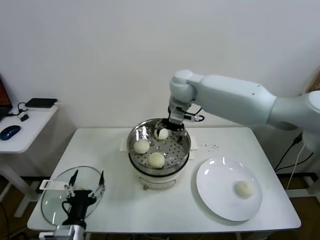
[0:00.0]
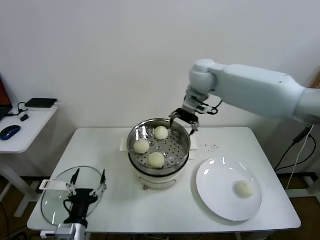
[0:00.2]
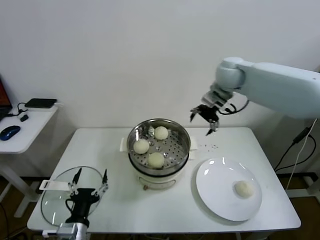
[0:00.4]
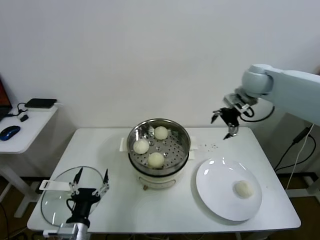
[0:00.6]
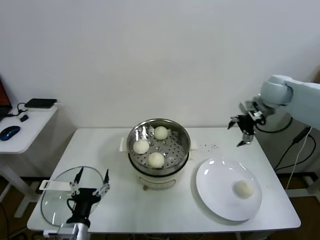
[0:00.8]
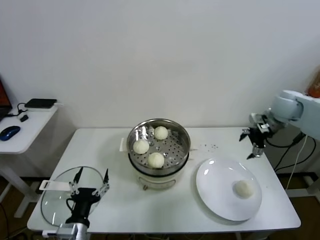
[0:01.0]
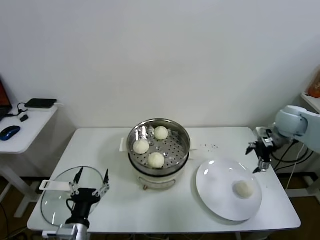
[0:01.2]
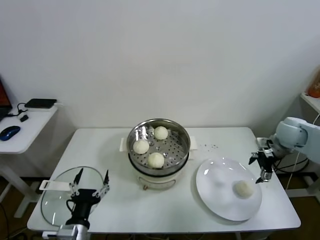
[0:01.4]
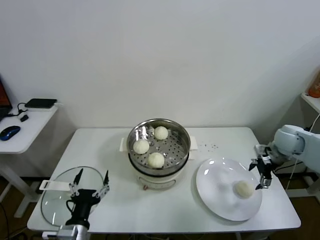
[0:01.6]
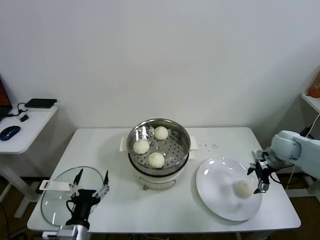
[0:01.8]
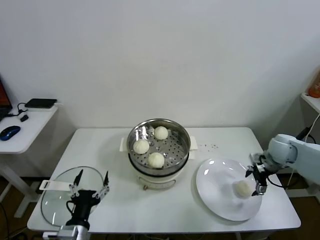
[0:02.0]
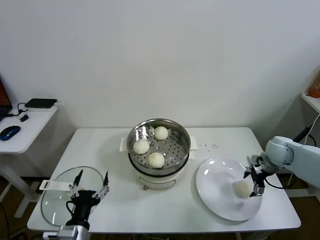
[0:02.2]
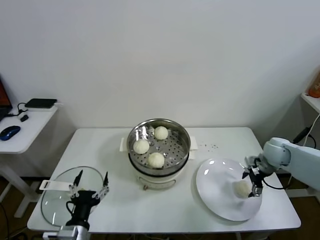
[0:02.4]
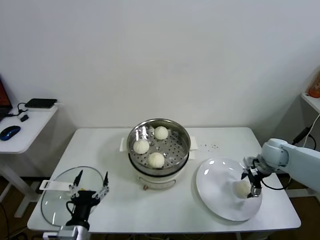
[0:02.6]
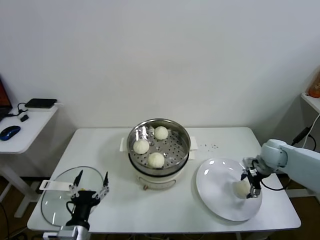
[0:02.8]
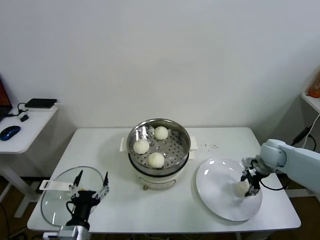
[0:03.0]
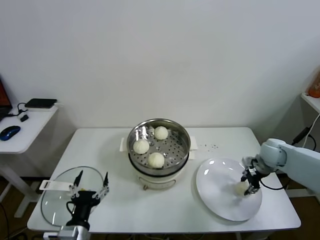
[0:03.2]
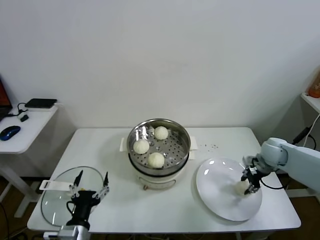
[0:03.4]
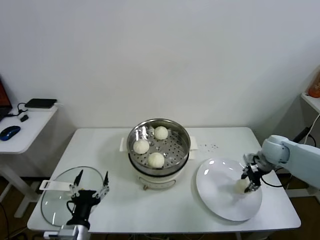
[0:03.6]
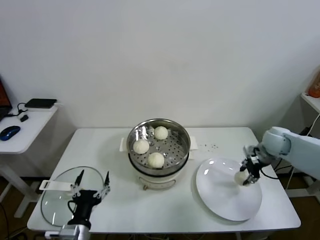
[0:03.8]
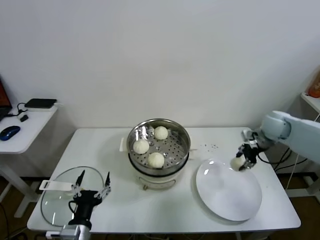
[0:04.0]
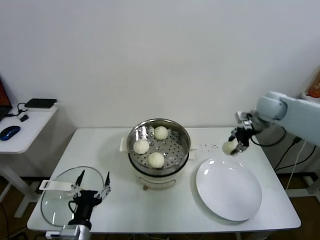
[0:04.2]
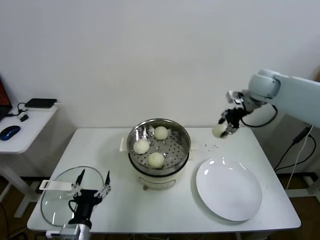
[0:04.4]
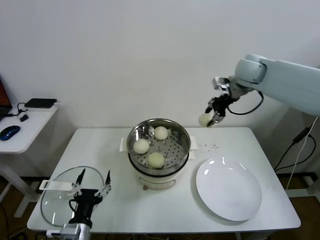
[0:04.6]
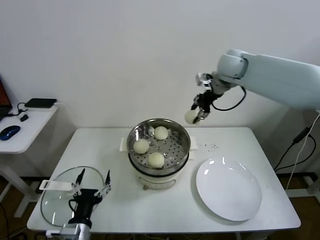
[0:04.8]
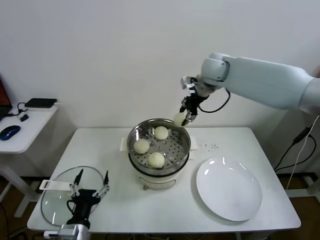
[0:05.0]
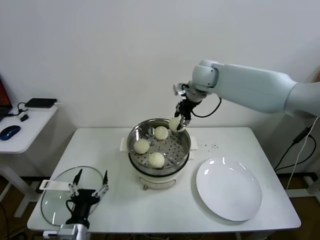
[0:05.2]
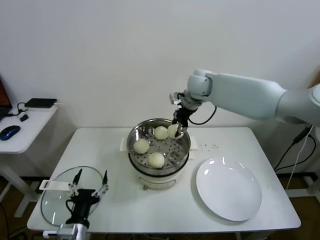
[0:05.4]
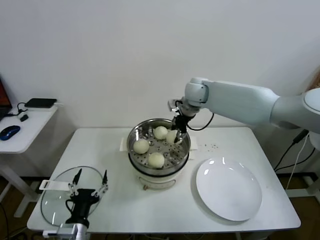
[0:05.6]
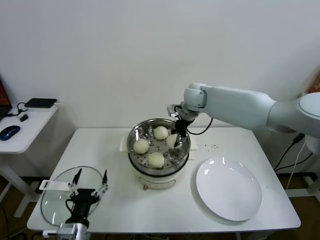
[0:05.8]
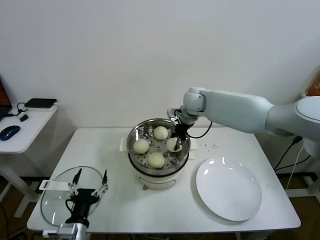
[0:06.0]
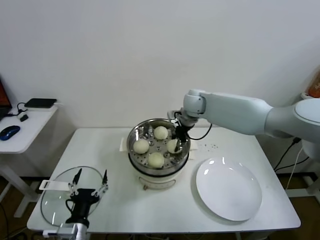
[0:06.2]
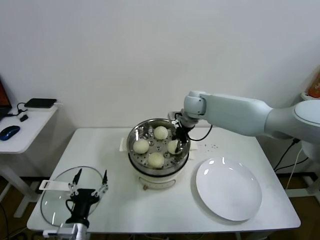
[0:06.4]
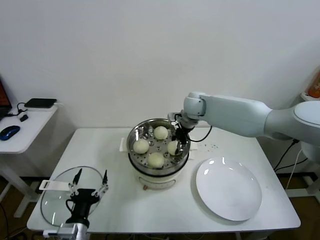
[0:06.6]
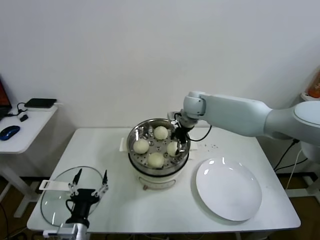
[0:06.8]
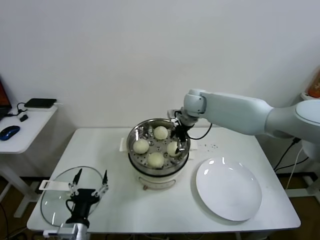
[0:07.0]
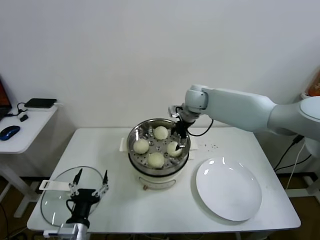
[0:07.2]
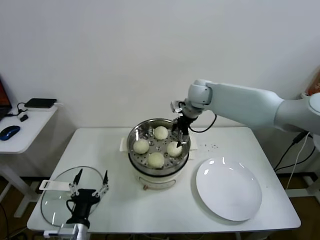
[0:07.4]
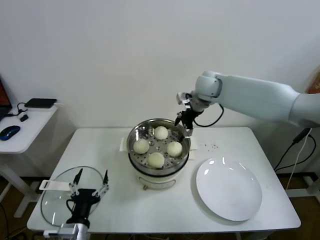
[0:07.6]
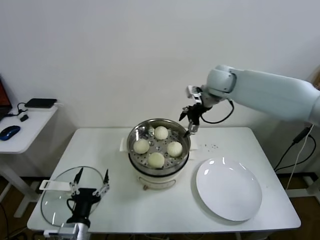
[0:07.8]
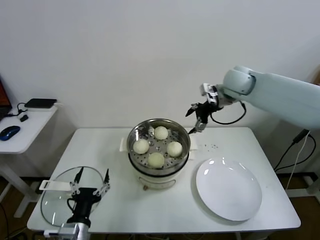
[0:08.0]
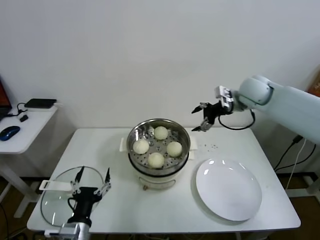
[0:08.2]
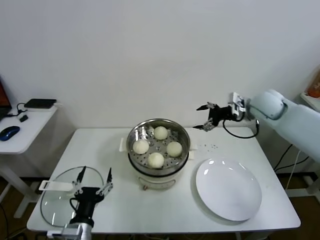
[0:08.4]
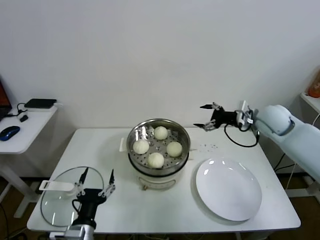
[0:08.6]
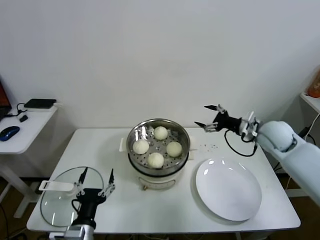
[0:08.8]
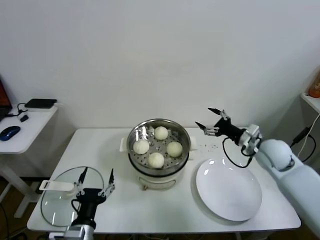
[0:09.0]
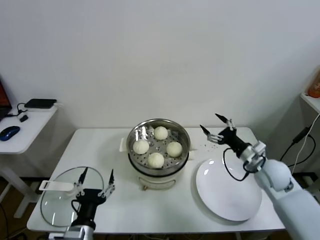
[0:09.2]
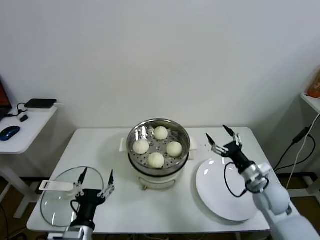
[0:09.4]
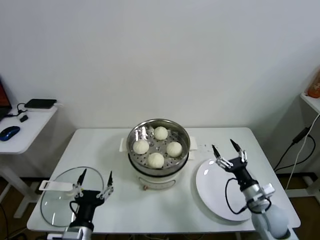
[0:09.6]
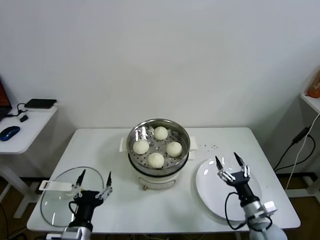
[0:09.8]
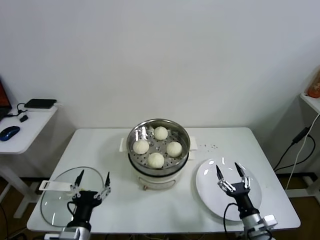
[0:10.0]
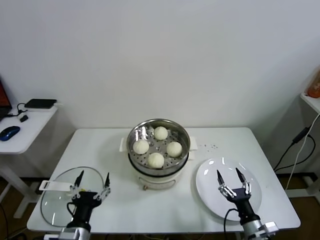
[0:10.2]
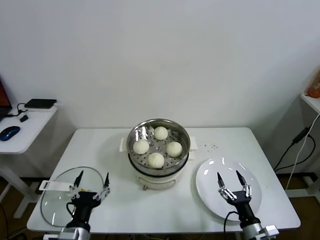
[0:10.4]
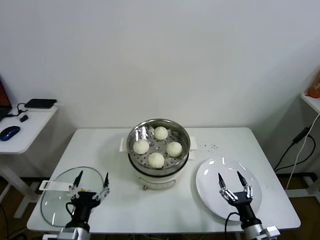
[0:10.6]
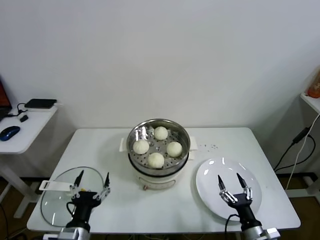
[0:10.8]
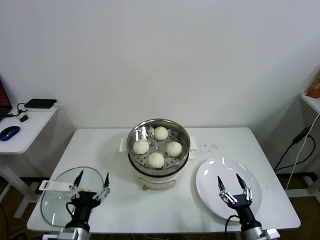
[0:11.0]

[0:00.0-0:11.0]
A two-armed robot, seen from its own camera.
Task of the whole recording: take steamed baozi put them in steamer.
Step, 0:00.0 to 0:03.0: Grasp the baozi in the plate with right gripper.
Step, 0:03.4 to 0:07.0: Place the baozi on the steamer with right gripper.
0:00.0 to 0:01.6: The right gripper goes roughly 40 cm to the right and downward.
0:01.6 to 0:03.2: The right gripper travels downward by approximately 5 cm, and closes.
0:03.2 to 0:04.8: The right gripper travels upward, to the left and forward by some 35 cm.
0:04.8 to 0:06.2: The right gripper is displaced downward and to the left by some 20 cm.
0:06.2 to 0:07.8: The right gripper is displaced upward and to the right by about 10 cm, and opens.
0:07.8 to 0:09.4: The right gripper travels downward, backward and to the right by roughly 40 cm.
0:09.4 to 0:11.0: The right gripper goes roughly 20 cm backward and downward.

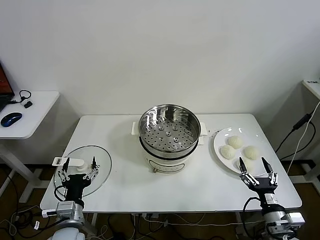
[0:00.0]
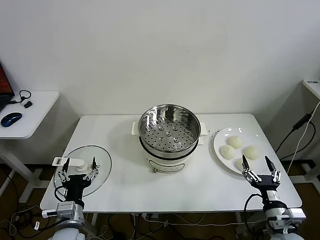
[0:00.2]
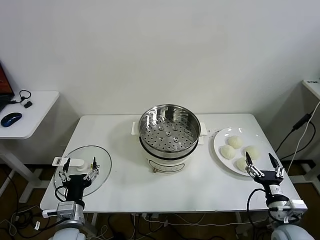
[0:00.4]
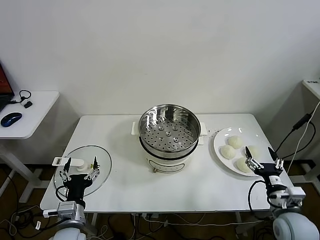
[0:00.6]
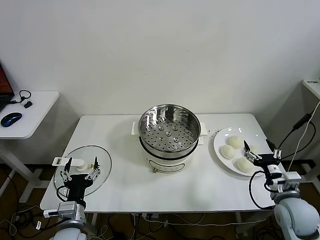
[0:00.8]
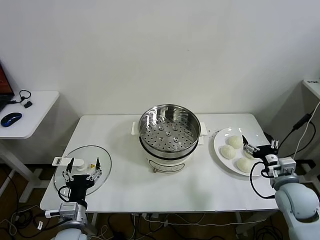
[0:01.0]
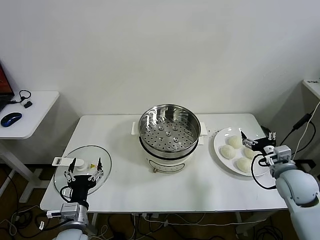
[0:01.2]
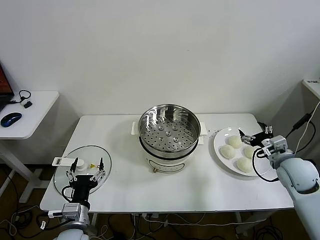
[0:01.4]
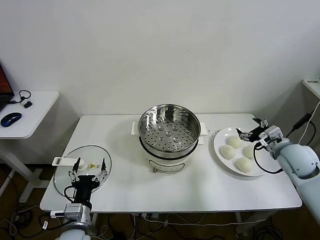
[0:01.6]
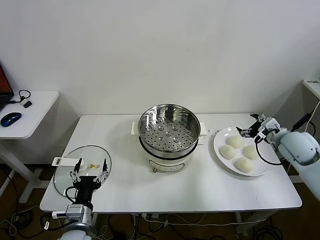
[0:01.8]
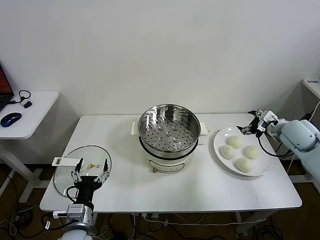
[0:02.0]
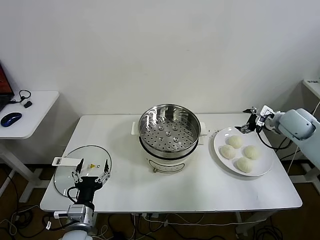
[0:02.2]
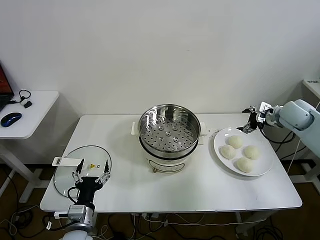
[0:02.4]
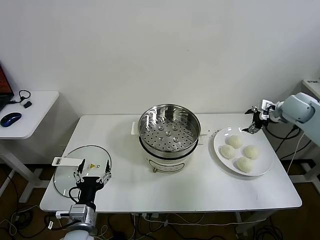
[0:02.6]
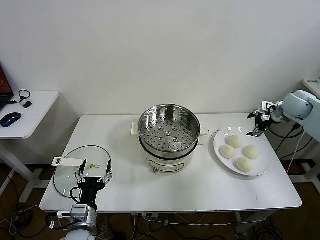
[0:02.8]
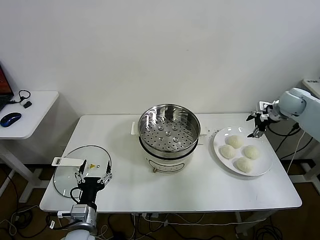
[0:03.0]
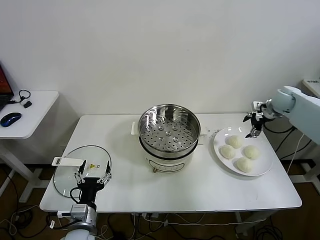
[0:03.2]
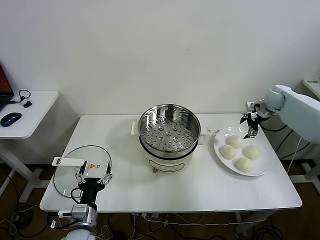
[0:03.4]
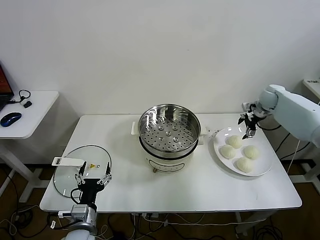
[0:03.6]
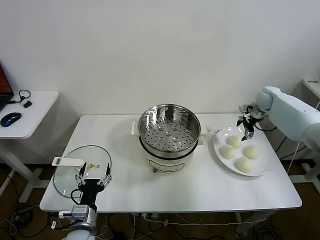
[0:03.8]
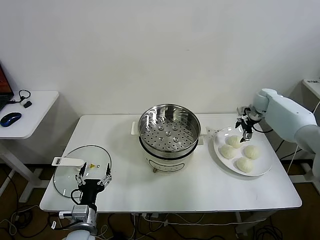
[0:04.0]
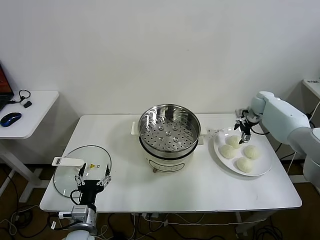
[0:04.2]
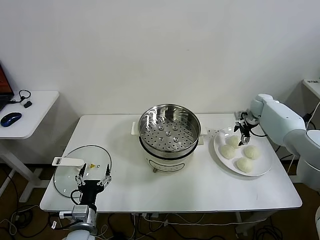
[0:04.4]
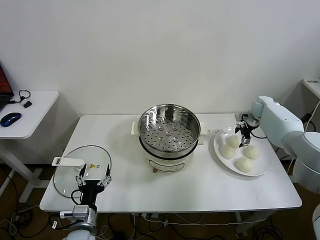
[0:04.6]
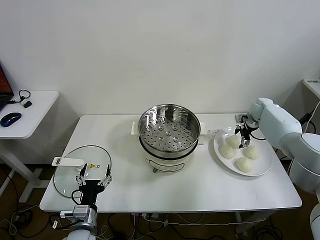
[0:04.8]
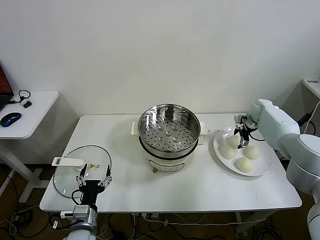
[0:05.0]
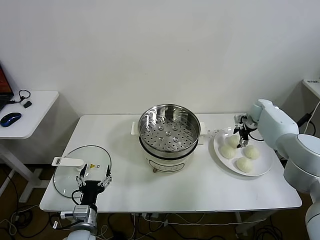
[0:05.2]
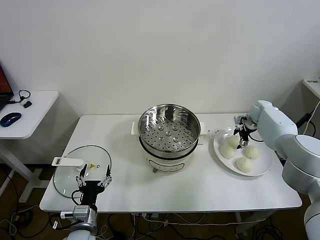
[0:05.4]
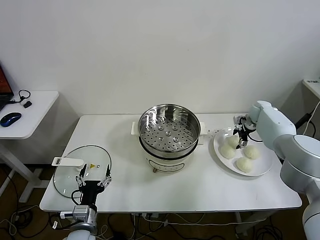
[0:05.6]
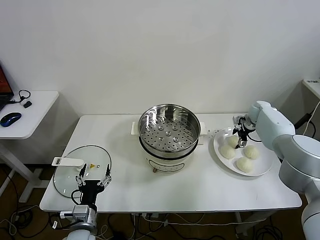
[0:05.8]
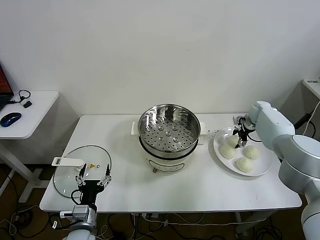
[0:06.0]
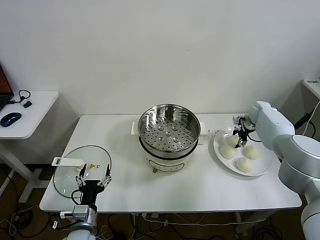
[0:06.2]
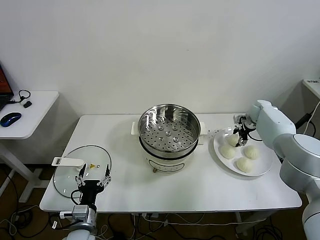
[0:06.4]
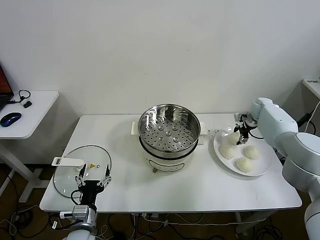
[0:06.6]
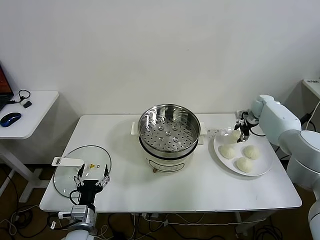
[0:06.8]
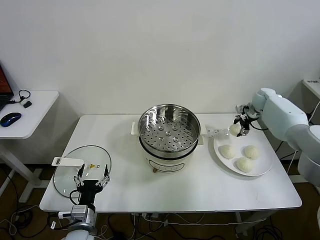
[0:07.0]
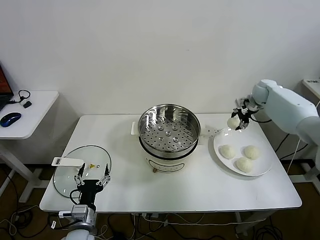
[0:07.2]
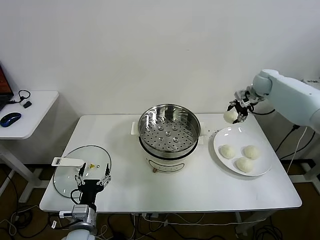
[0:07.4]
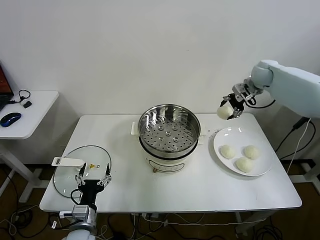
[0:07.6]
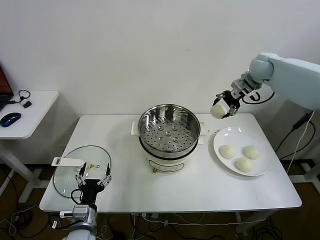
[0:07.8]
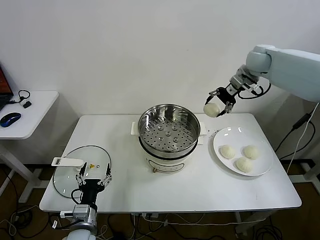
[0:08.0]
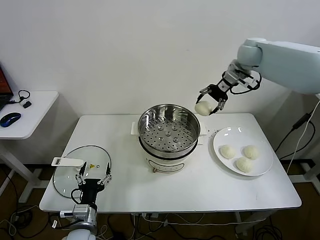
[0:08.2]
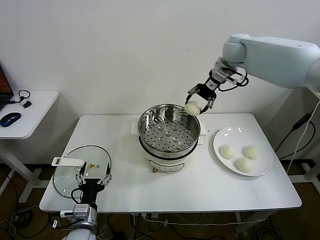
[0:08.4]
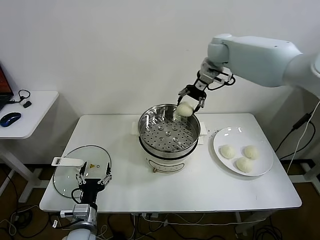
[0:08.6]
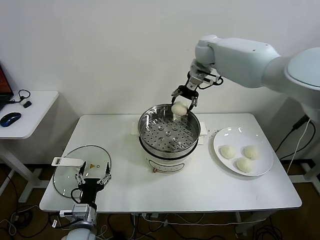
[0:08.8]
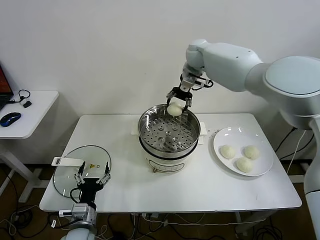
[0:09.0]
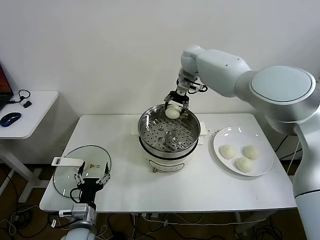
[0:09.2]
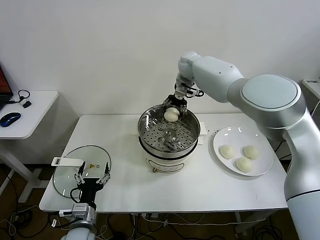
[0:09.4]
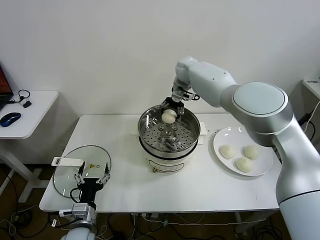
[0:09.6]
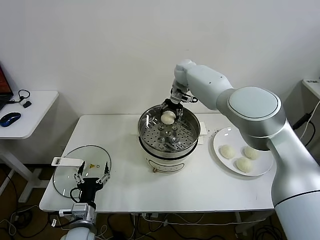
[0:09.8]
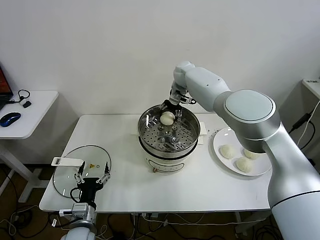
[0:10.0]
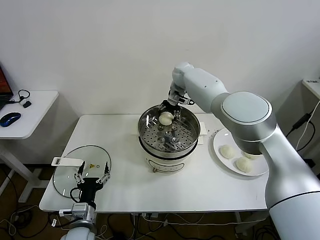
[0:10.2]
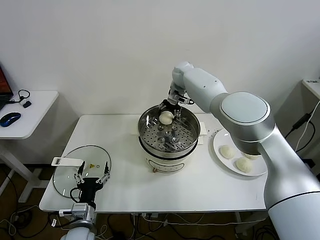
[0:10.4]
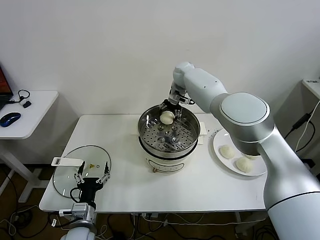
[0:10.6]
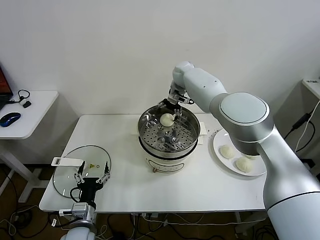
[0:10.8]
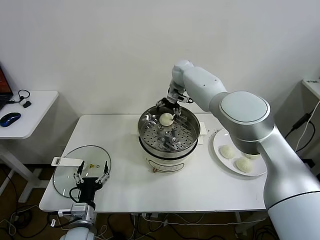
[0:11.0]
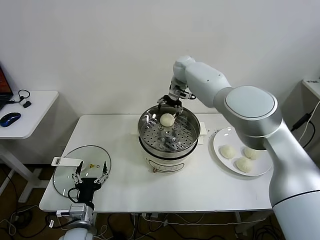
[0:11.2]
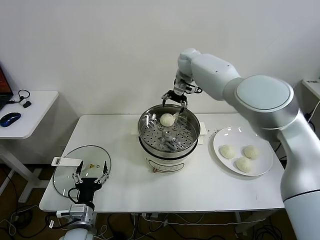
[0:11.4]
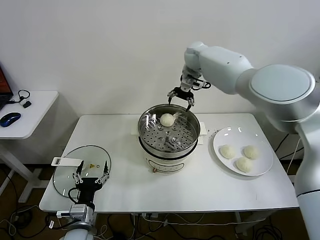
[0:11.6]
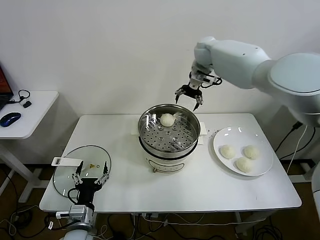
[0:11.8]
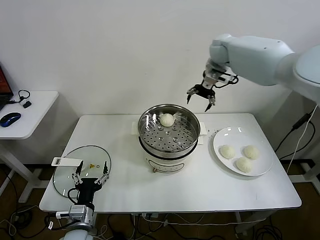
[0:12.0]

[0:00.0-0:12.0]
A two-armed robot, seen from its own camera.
Task of the whole recording: take steamed baozi put them in steamer.
Step, 0:00.0 to 0:06.2: Grasp the baozi in the plate with right gripper.
Step, 0:06.4 to 0:10.8: Place the baozi on the steamer with right gripper.
0:01.6 to 0:03.0: The right gripper heads forward, covering approximately 15 cm.
0:03.0 to 0:04.4: The right gripper heads downward and forward, covering approximately 10 cm.
0:04.4 to 0:06.0: The grippers stay close to where they were, moving slightly.
0:06.0 to 0:07.6: The right gripper is displaced upward by some 20 cm.
0:07.6 to 0:09.0: The right gripper is displaced to the left by some 25 cm.
0:09.0 to 0:10.4: The right gripper moves downward, approximately 10 cm.
0:10.4 to 0:12.0: The right gripper travels to the right and upward by roughly 20 cm, and opens up.
